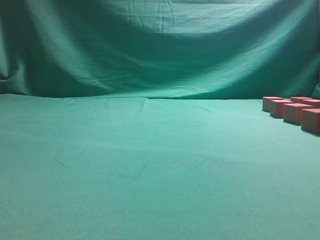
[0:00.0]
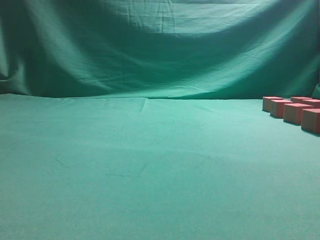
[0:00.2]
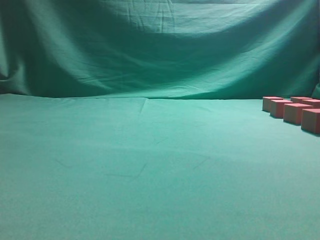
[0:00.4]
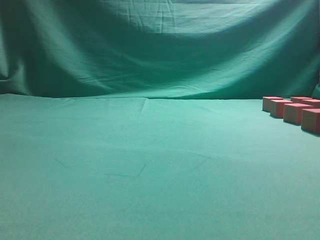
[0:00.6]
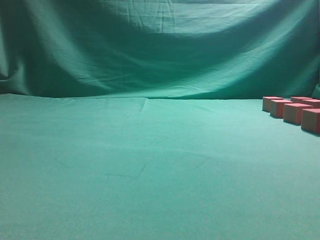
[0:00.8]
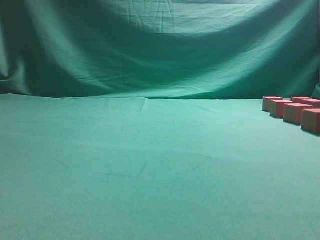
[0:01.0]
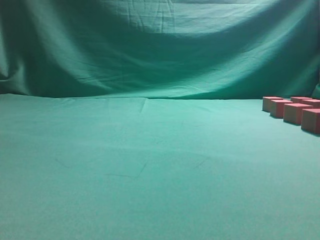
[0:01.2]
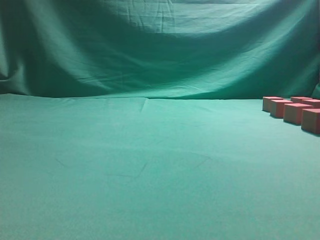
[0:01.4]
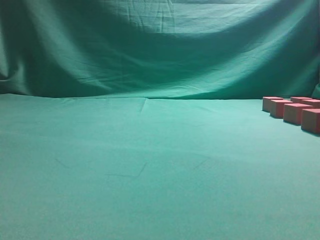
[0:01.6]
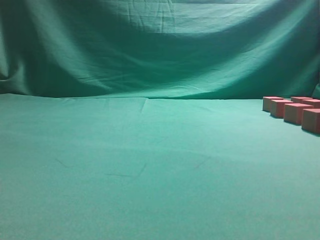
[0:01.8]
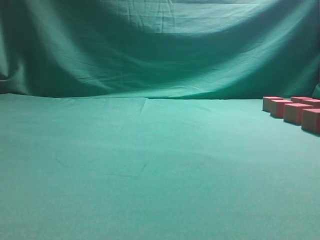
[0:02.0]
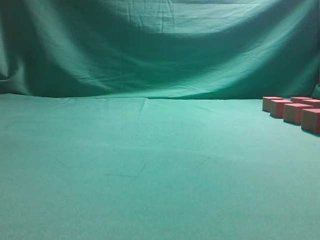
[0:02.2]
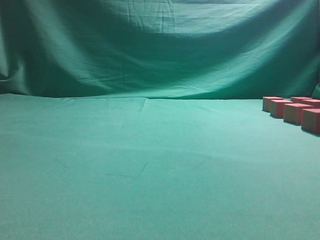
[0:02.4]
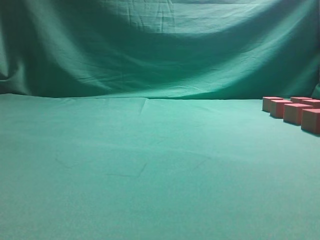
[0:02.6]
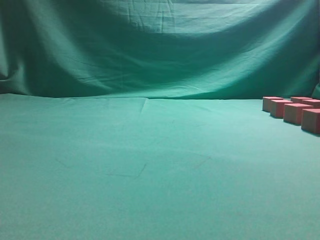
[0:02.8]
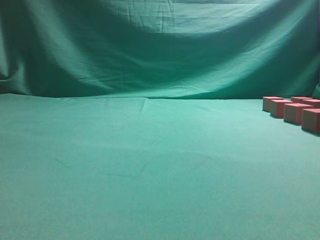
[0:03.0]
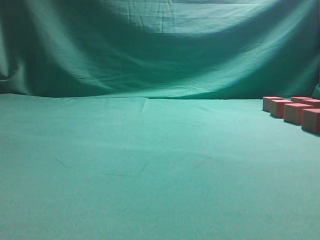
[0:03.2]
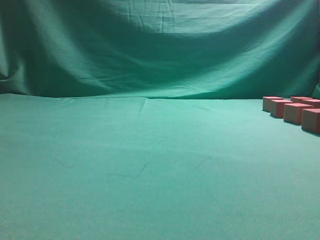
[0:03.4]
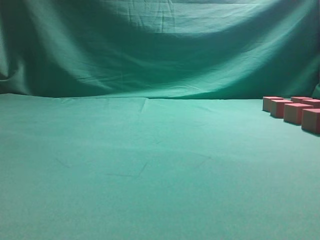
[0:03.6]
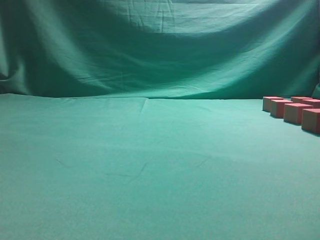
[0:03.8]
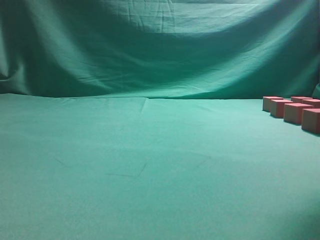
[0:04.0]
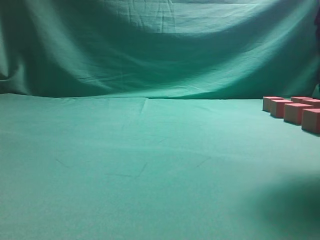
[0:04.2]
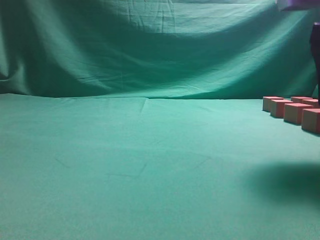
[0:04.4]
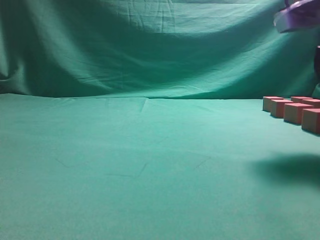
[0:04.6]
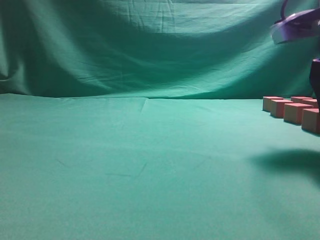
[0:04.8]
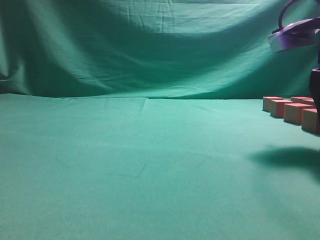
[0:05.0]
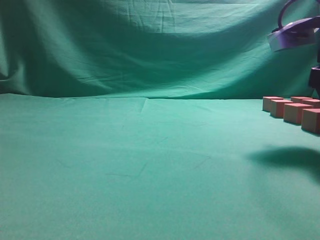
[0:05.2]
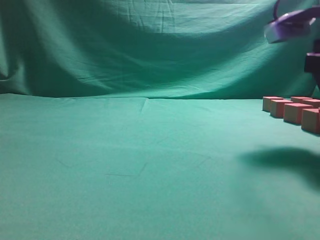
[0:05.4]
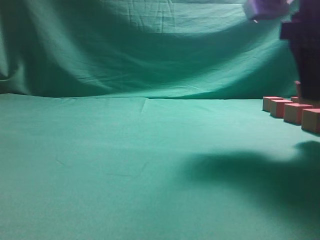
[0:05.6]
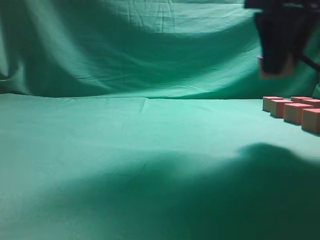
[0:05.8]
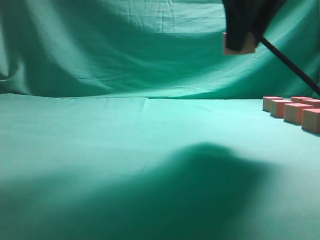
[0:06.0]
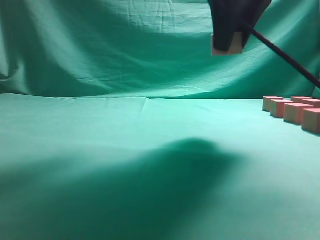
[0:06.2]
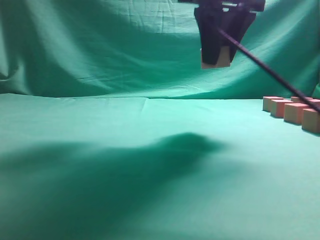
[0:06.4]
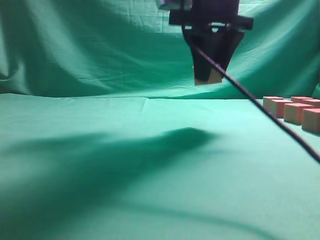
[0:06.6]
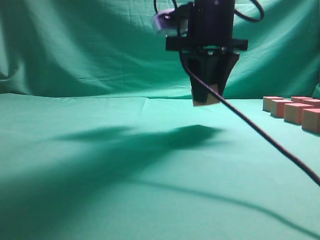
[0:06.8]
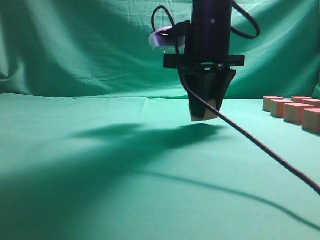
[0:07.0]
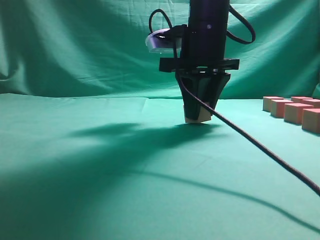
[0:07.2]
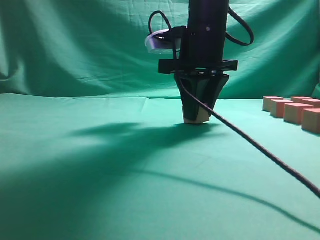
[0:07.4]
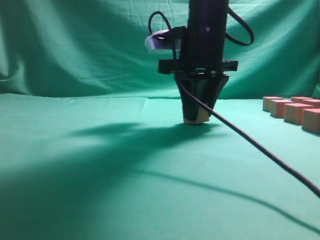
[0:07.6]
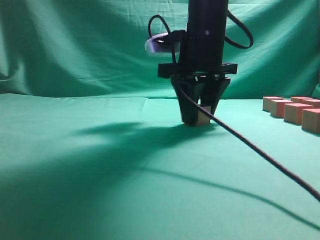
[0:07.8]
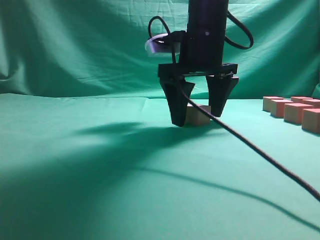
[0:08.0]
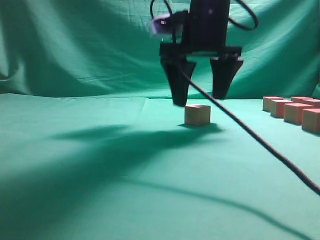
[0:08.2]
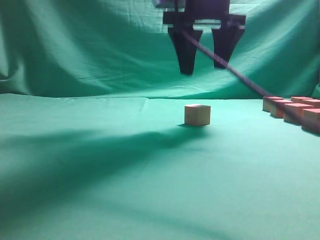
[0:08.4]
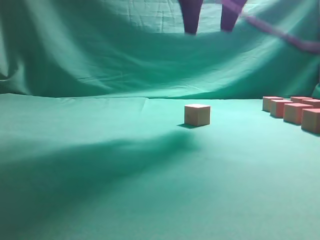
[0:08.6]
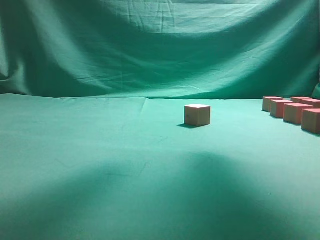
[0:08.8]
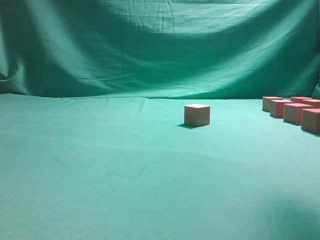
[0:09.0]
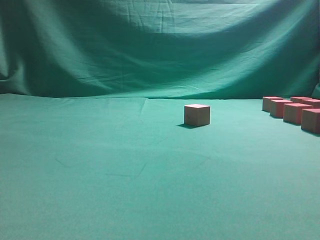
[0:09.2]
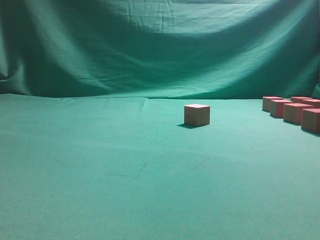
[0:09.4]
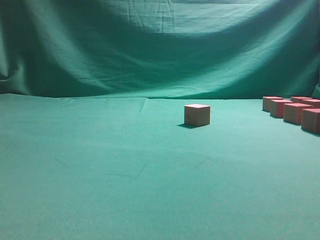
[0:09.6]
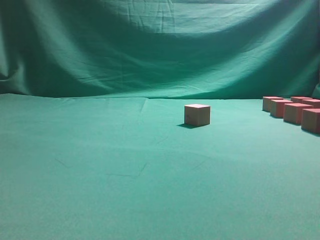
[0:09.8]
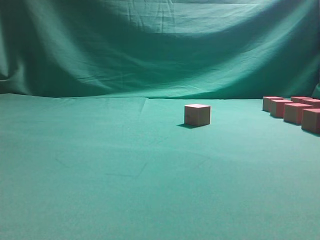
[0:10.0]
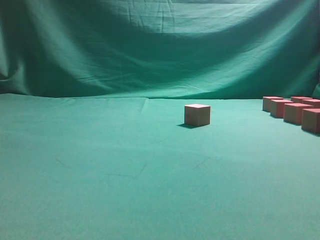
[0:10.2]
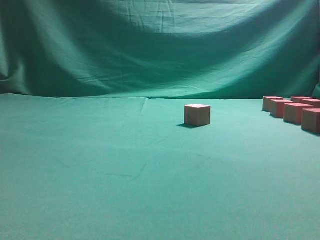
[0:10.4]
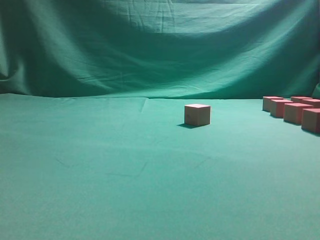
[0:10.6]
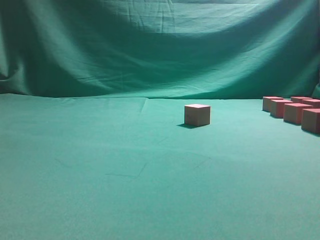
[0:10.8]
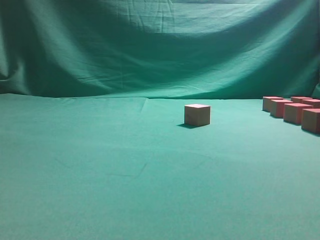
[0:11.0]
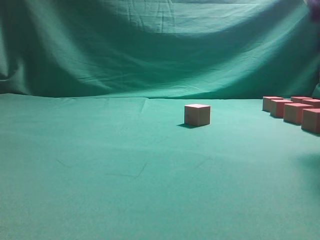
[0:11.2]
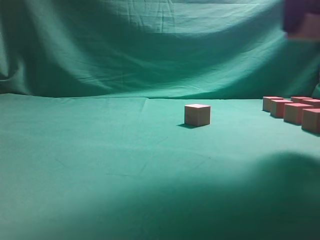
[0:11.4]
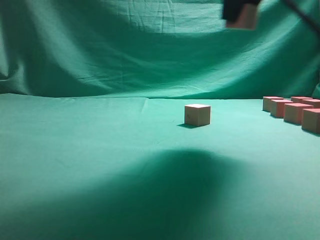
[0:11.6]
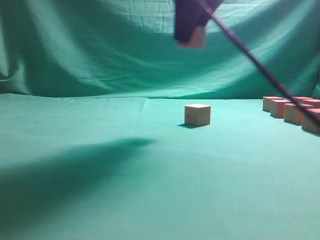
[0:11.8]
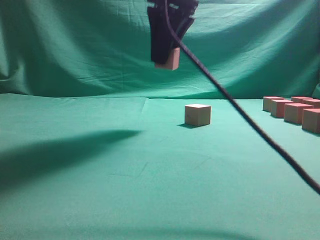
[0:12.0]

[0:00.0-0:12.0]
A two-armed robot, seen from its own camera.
Task of the whole recording: pick up the multiple cubes in two columns one by one and place them in another position on the table.
Step, 0:00.0 to 0:05.4: Pick up the block on the table.
Step, 0:05.6 to 0:08.4: Place the block at the correct position to assemble the letter S.
Step, 0:08.6 to 0:11.0: Pick up the block on the table.
0:03.0 to 0:04.4: The right gripper is displaced forward and downward by approximately 10 cm, and opens.
0:04.4 to 0:06.0: The right gripper moves to the left and upward, about 15 cm.
0:06.0 to 0:07.6: The right gripper goes approximately 15 cm downward, forward and to the left.
0:07.6 to 0:09.0: The right gripper goes about 25 cm upward, to the right and backward, and opens.
0:09.0 to 0:10.4: The right gripper moves downward, about 20 cm.
0:10.4 to 0:12.0: The right gripper goes some 25 cm to the left.

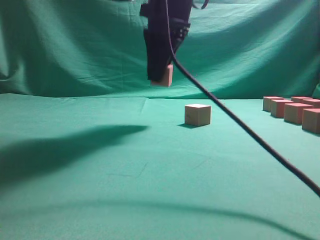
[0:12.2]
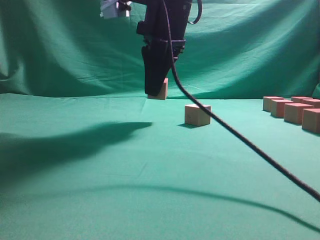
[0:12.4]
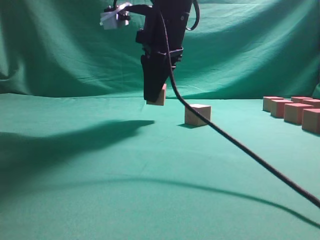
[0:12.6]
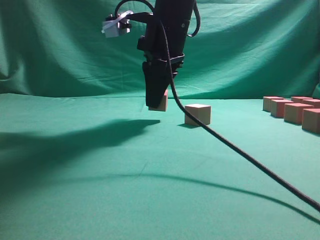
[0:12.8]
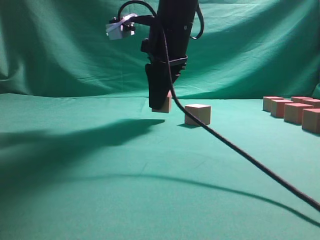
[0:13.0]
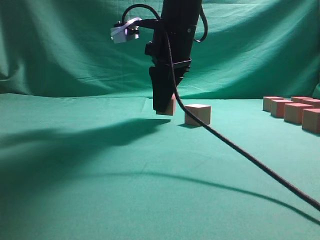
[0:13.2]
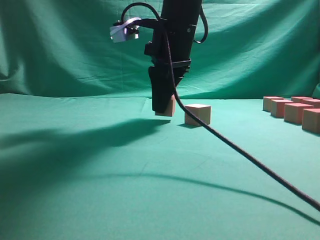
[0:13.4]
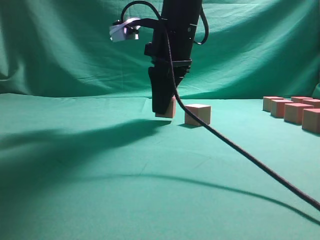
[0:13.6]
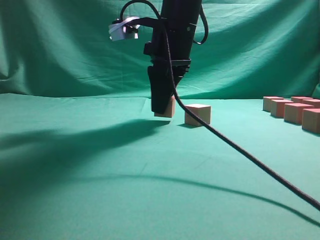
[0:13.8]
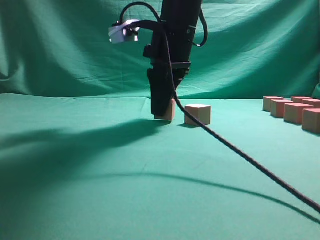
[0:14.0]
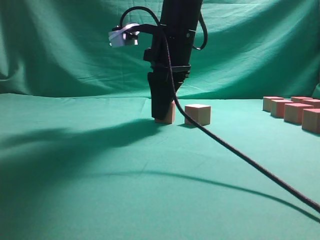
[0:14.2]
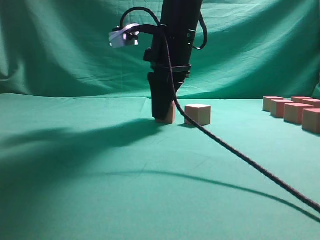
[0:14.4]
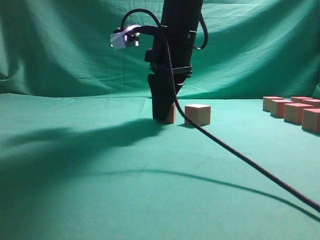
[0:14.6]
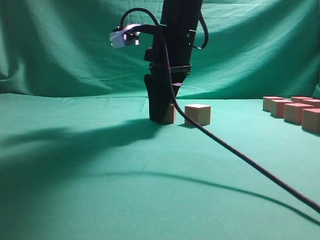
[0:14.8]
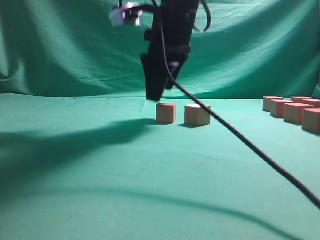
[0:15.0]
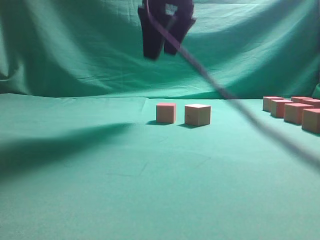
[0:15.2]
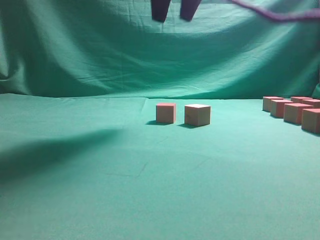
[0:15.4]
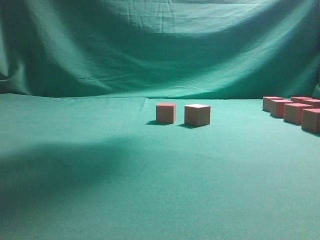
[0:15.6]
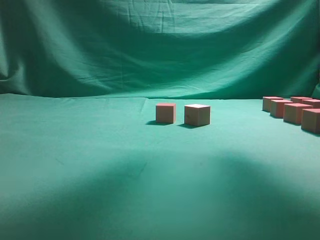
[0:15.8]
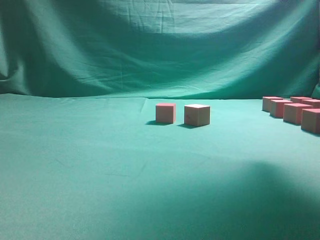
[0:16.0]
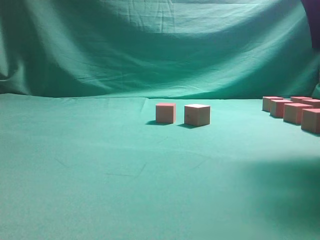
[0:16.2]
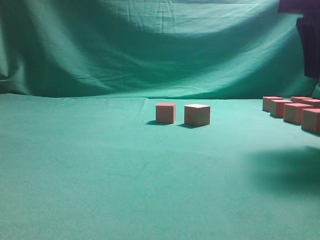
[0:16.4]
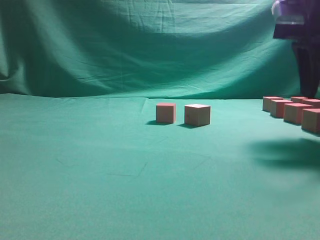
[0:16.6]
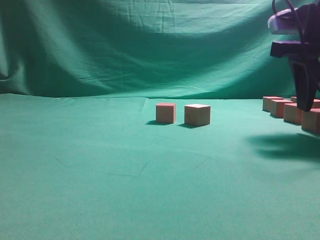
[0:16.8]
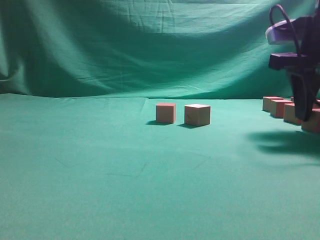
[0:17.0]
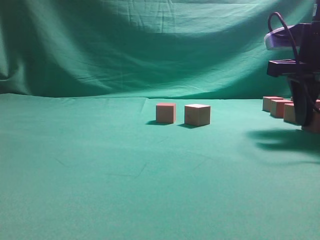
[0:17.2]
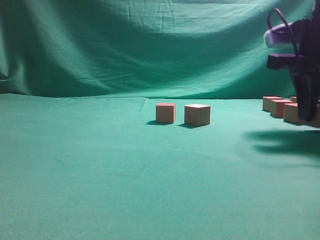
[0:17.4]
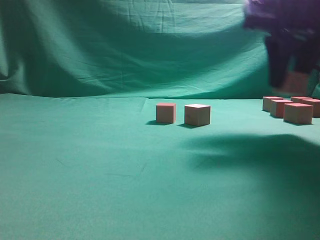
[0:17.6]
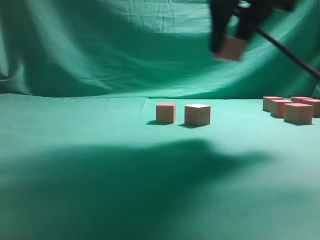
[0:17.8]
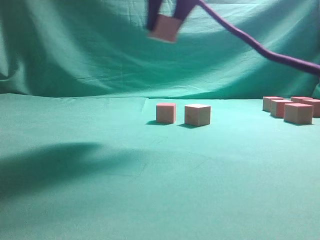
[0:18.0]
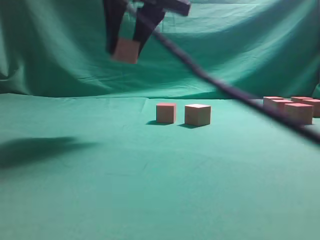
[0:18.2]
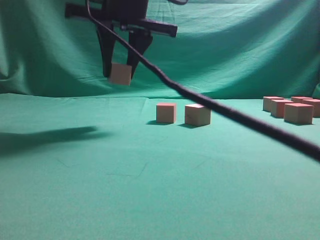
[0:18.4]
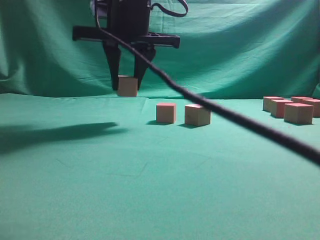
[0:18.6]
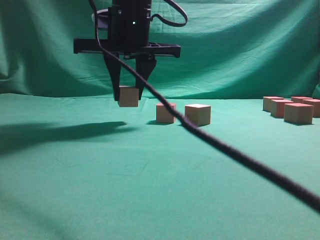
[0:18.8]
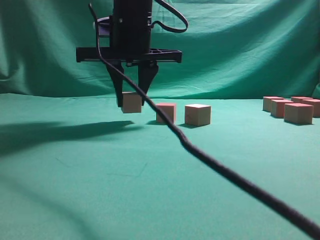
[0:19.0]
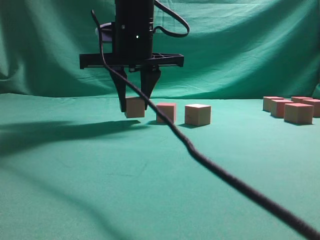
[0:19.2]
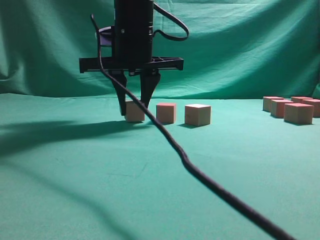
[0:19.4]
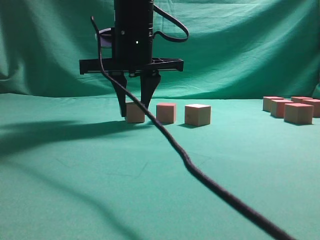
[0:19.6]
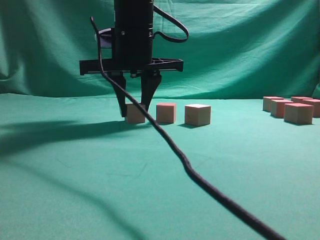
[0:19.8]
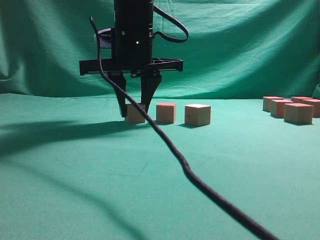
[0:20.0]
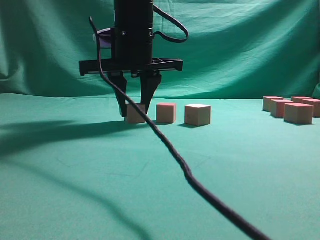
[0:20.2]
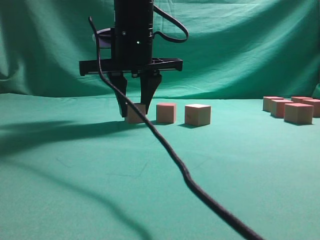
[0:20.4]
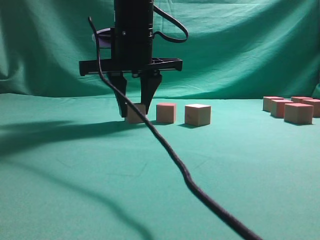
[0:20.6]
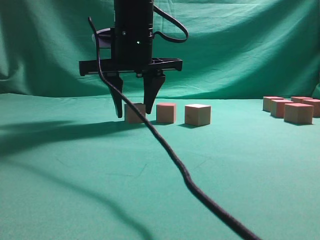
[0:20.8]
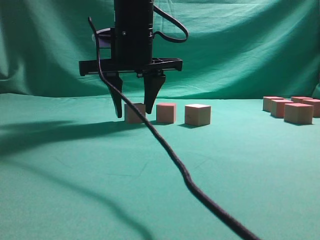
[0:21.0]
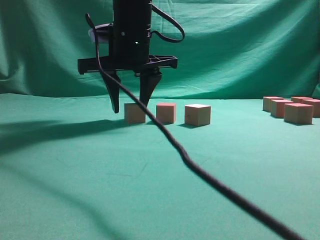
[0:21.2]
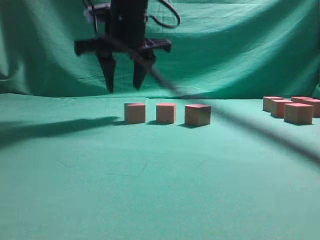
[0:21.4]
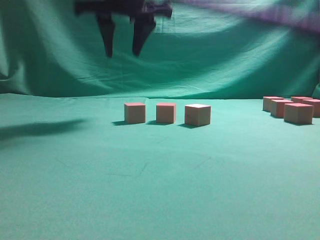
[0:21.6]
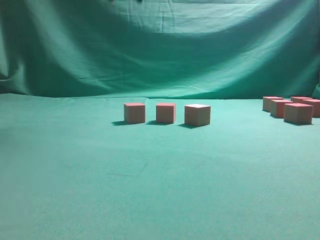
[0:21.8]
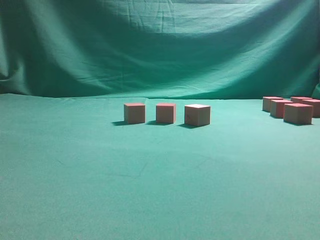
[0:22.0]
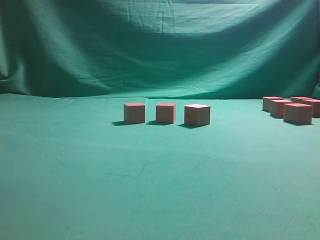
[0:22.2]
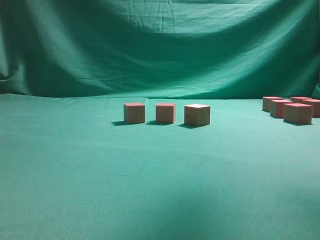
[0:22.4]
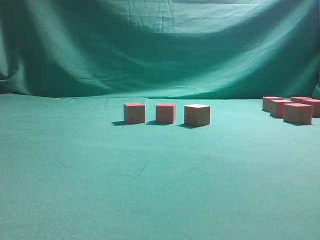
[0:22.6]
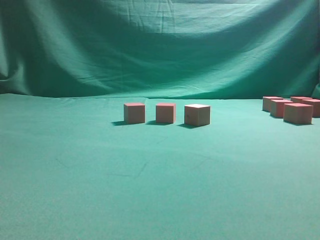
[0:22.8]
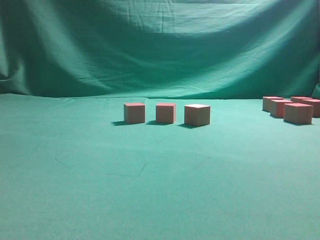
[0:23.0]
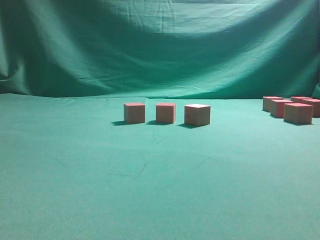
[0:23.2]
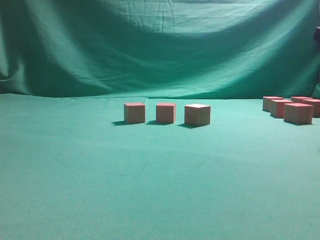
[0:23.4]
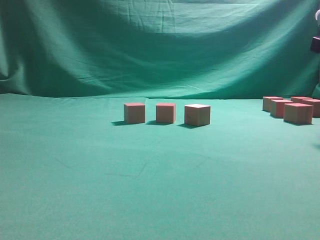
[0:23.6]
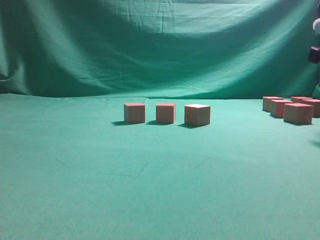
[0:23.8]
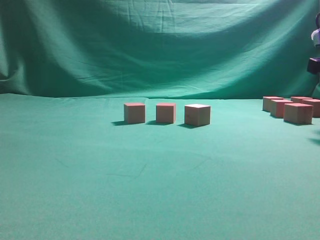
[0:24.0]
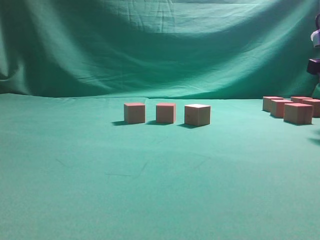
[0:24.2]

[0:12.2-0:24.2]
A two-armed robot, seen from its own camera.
Task of the whole recording: pick up the multiple cubes in two columns one by one and place them in another position on the table.
Step, 0:12.2 to 0:15.2: Place the block at the correct position to assemble the letter S.
Step, 0:15.4 to 0:17.4: Pick up the block on the table.
Step, 0:17.6 to 0:21.6: Place the block at the correct position to assemble the letter S.
0:12.2 to 0:13.8: The grippers move only a little.
0:13.8 to 0:15.2: The right gripper goes roughly 10 cm upward, and opens its fingers.
0:15.2 to 0:16.6: The right gripper heads to the right, covering some 20 cm.
0:16.6 to 0:18.2: The right gripper is displaced to the left by approximately 25 cm.
0:18.2 to 0:19.8: The right gripper is displaced downward by roughly 10 cm.
0:19.8 to 0:21.2: The grippers stay close to where they were, moving slightly.
0:21.2 to 0:22.6: The right gripper shifts roughly 35 cm to the right and upward.
